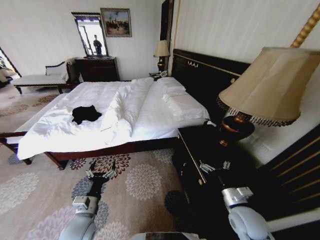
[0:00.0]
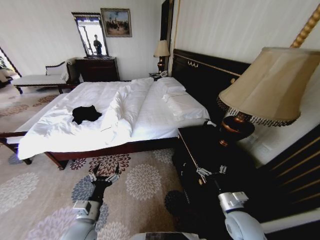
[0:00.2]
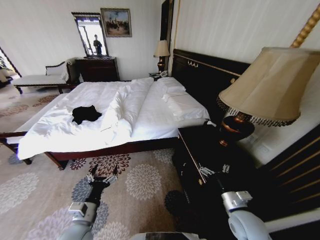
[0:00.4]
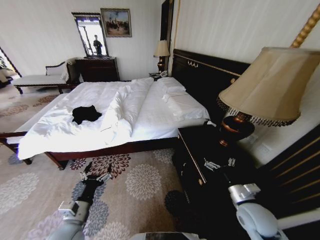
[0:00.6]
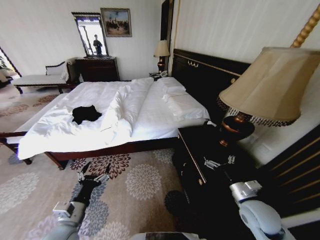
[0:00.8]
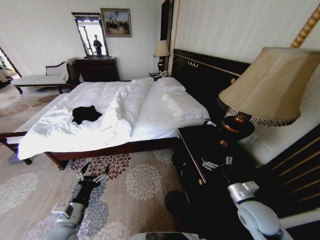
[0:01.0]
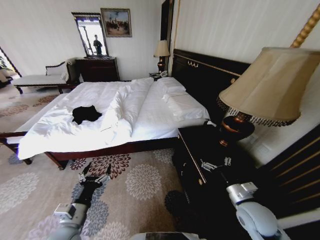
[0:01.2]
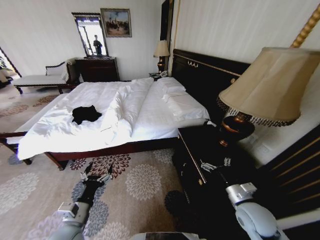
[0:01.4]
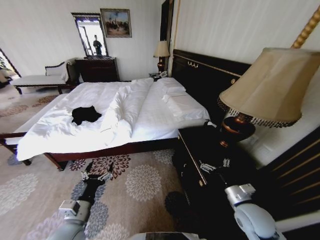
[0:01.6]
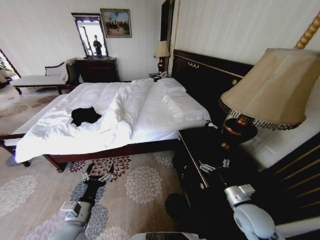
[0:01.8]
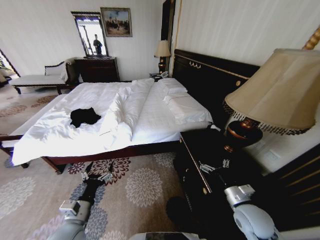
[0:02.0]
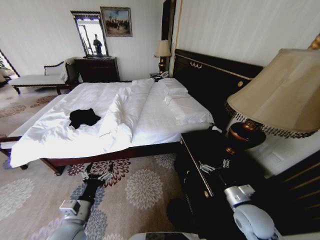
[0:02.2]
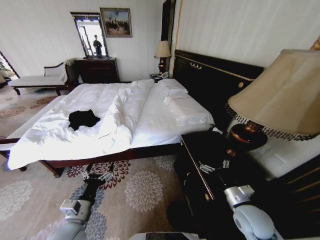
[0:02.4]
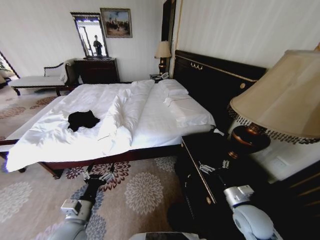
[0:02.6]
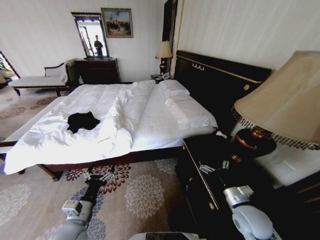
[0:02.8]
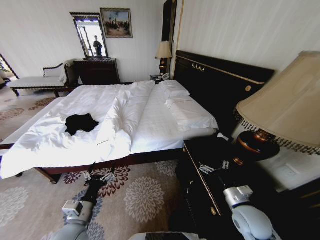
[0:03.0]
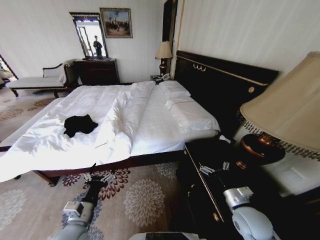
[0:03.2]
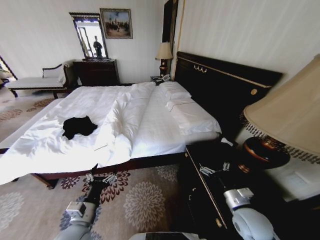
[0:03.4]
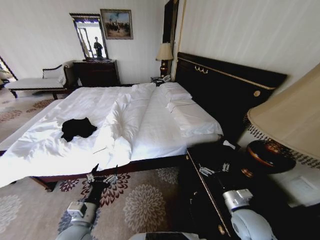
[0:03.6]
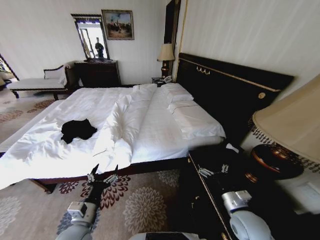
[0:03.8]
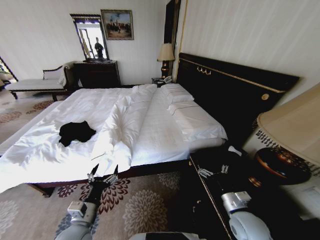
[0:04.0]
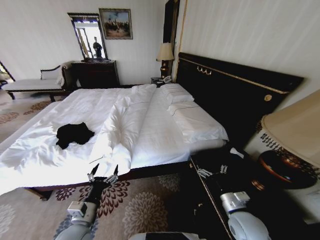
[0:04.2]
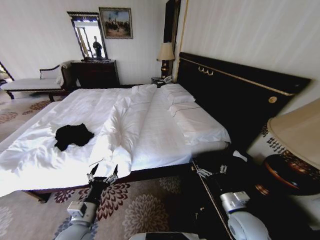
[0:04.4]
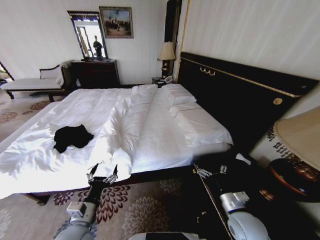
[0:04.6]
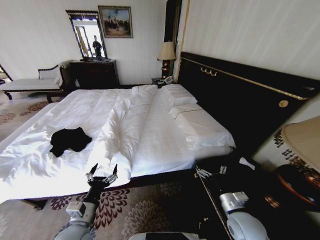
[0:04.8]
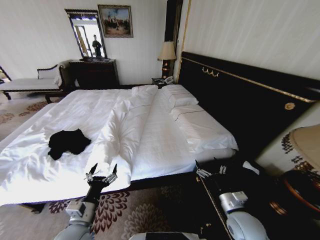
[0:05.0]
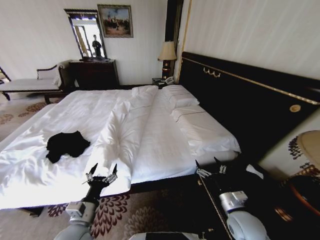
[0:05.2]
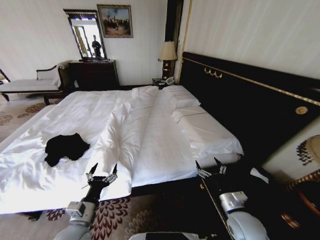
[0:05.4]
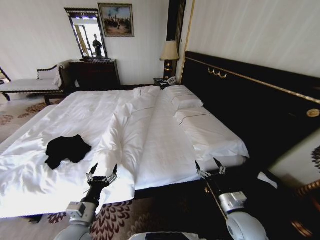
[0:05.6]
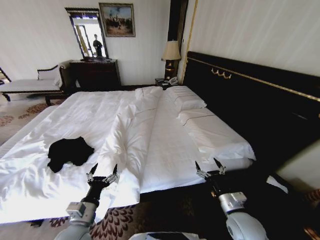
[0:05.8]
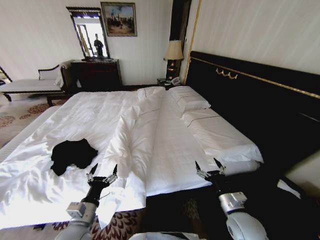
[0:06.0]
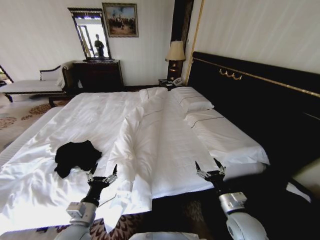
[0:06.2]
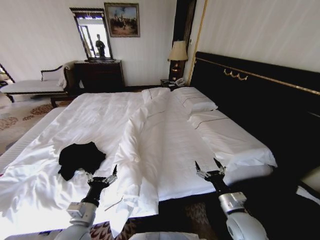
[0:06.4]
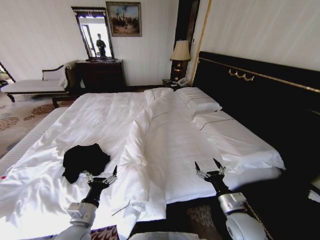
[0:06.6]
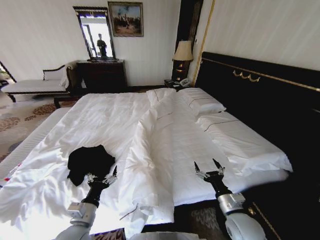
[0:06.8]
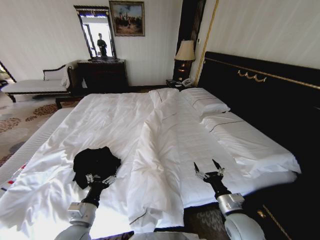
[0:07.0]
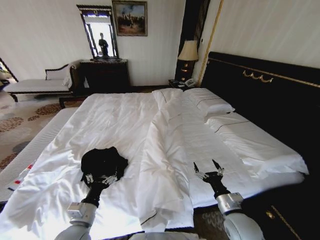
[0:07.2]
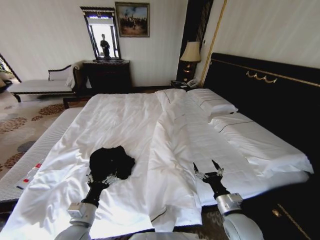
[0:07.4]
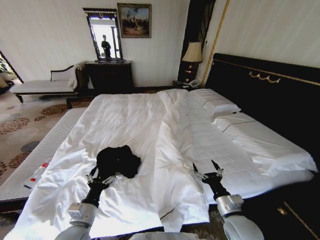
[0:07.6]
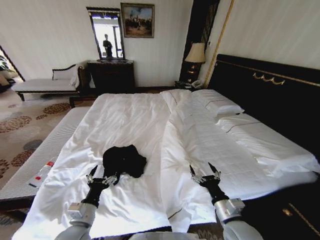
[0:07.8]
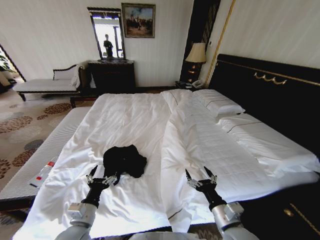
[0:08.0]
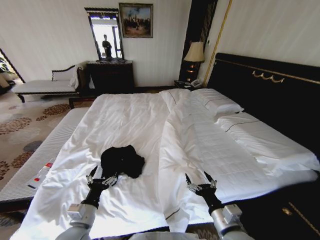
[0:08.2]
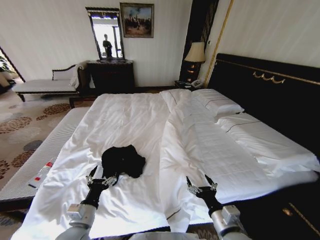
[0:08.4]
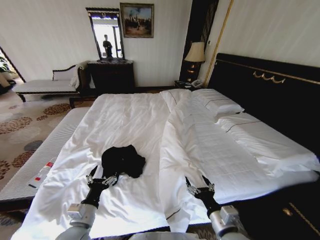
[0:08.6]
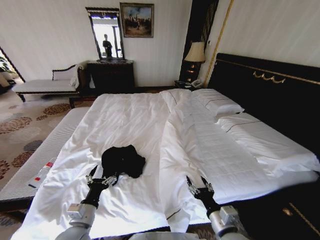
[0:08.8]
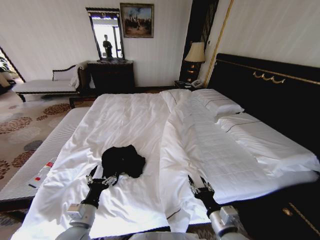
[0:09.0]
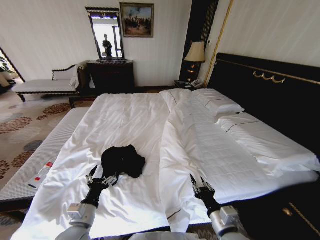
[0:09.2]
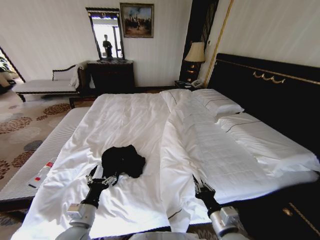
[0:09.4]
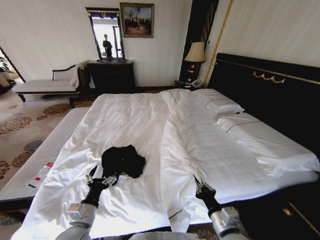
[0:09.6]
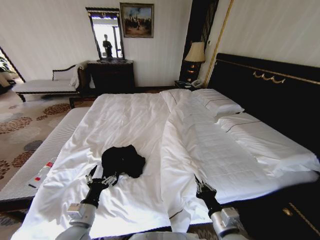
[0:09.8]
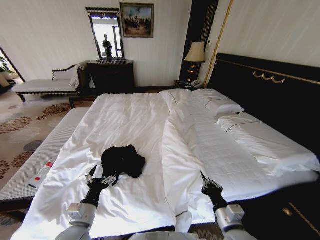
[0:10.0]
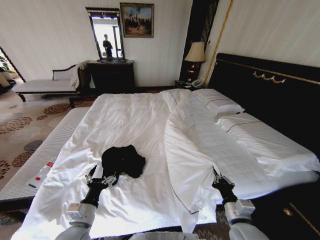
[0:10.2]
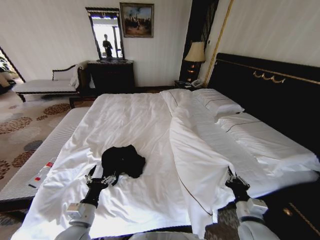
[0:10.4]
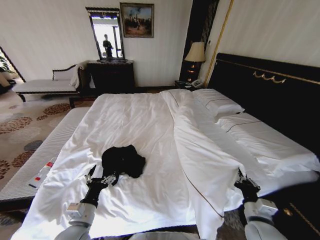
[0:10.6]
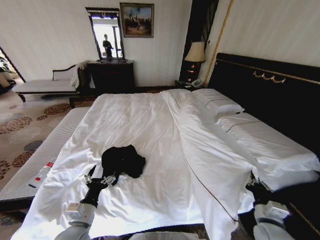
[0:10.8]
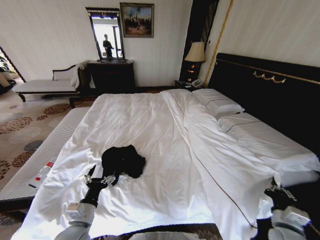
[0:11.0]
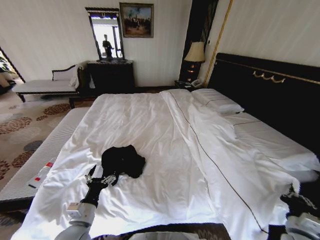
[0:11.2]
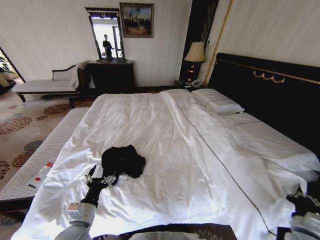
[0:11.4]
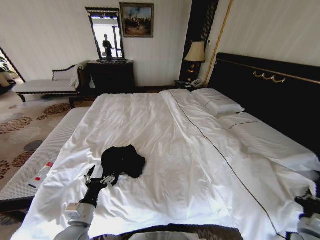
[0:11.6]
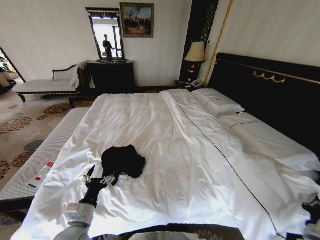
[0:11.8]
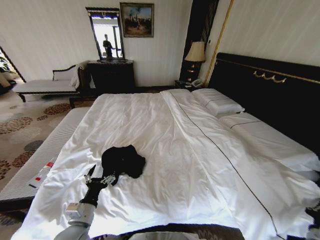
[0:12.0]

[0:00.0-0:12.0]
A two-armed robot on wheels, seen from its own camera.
Task of the whole recording: Fold the clothes on the bed.
0:07.6 to 0:09.0: The right gripper shifts by roughly 5 cm, and closes.
0:09.0 to 0:10.4: The right gripper shifts about 10 cm to the right, and closes up.
0:10.4 to 0:12.0: The right gripper travels to the right by some 25 cm.

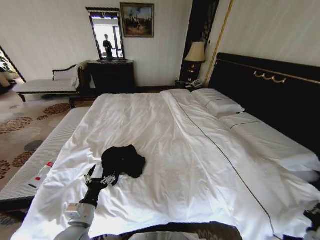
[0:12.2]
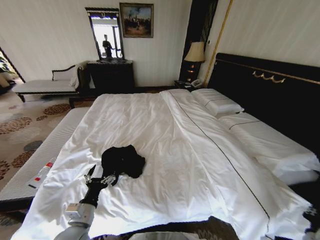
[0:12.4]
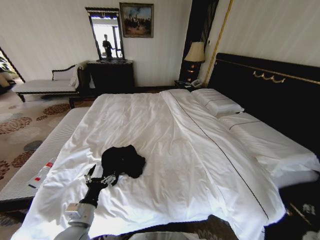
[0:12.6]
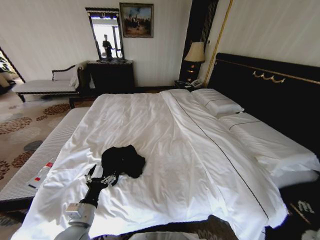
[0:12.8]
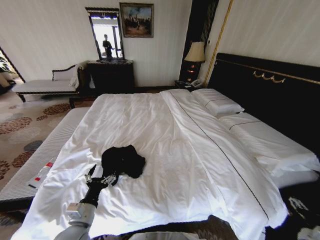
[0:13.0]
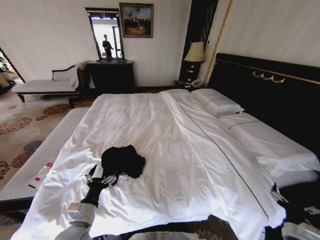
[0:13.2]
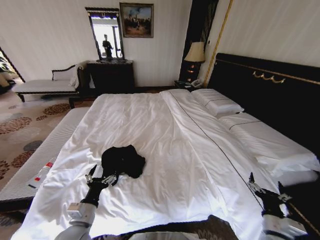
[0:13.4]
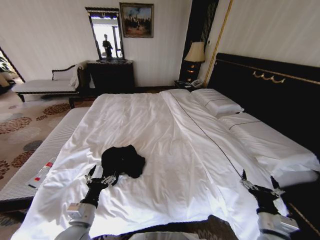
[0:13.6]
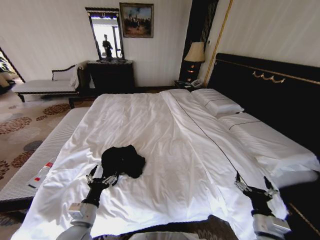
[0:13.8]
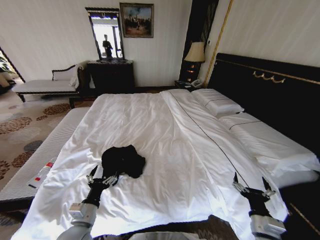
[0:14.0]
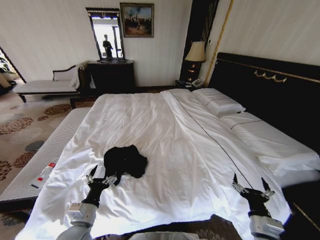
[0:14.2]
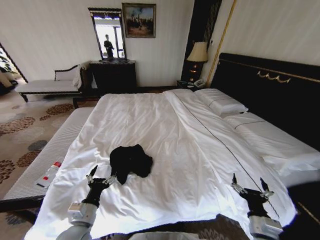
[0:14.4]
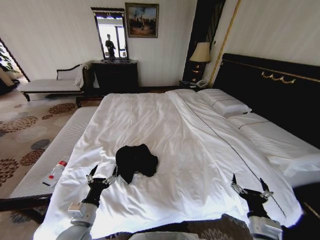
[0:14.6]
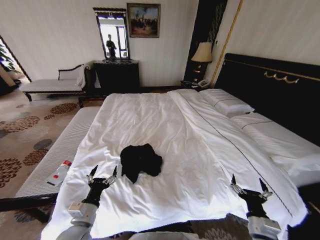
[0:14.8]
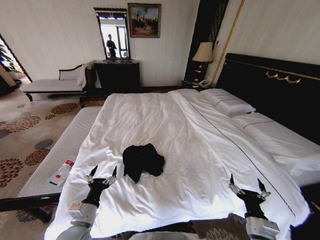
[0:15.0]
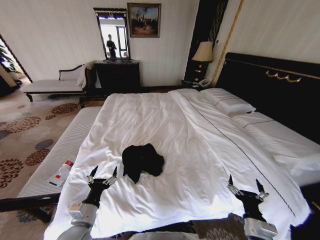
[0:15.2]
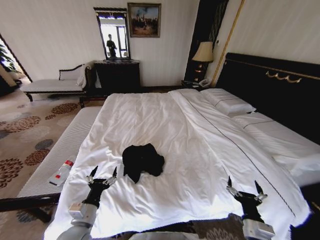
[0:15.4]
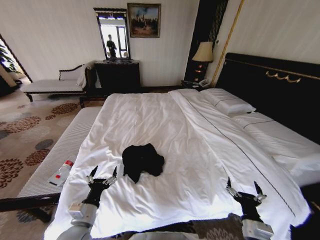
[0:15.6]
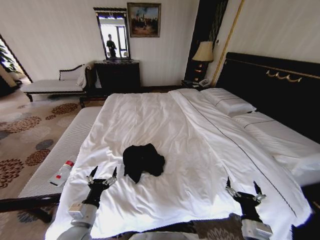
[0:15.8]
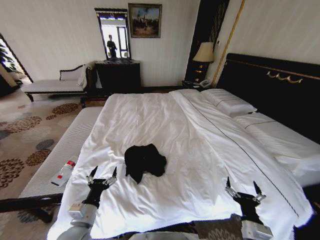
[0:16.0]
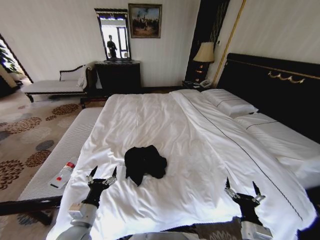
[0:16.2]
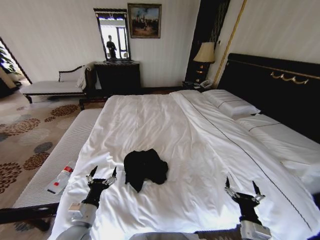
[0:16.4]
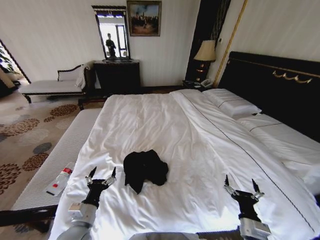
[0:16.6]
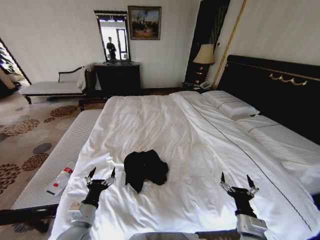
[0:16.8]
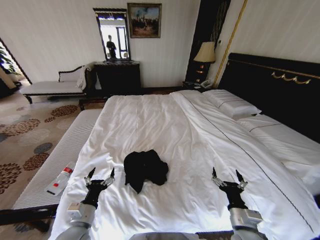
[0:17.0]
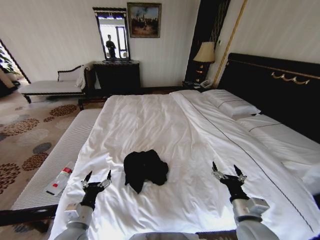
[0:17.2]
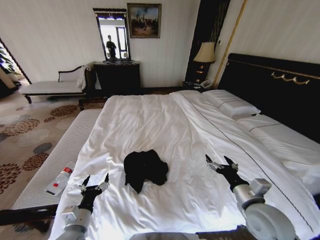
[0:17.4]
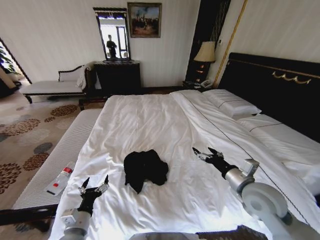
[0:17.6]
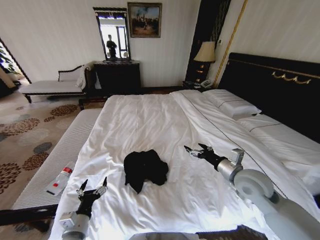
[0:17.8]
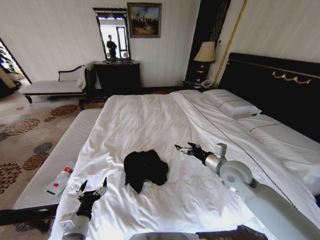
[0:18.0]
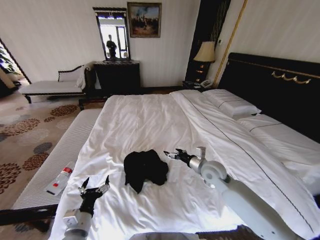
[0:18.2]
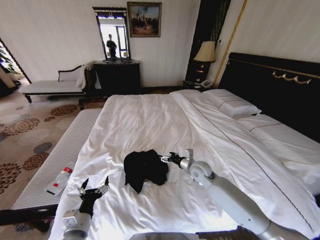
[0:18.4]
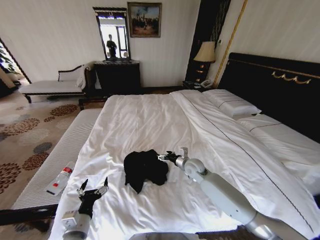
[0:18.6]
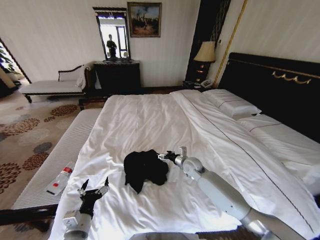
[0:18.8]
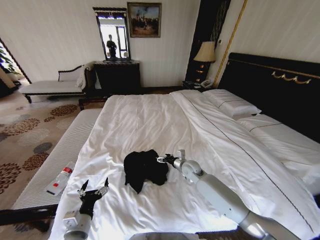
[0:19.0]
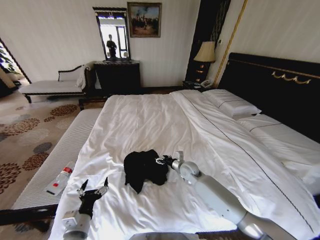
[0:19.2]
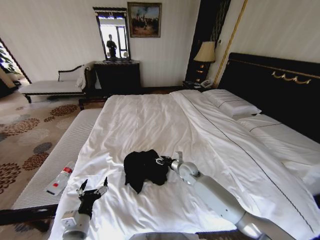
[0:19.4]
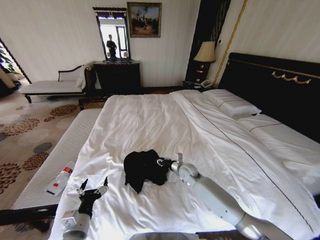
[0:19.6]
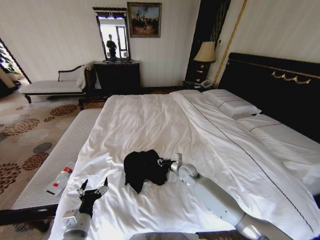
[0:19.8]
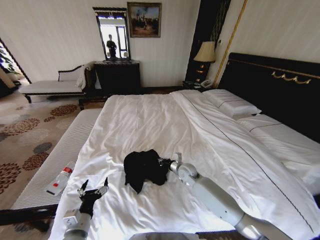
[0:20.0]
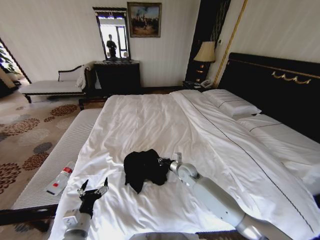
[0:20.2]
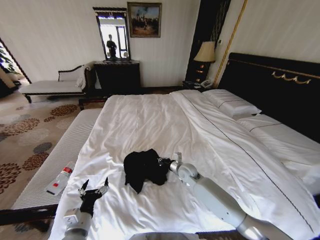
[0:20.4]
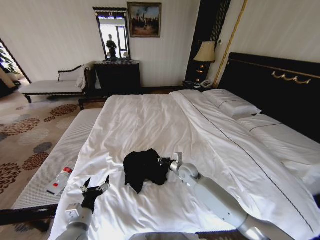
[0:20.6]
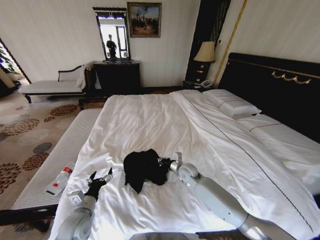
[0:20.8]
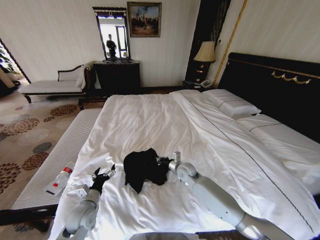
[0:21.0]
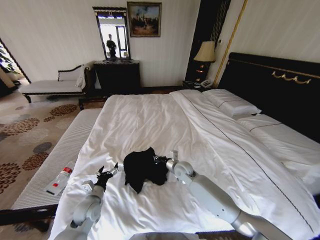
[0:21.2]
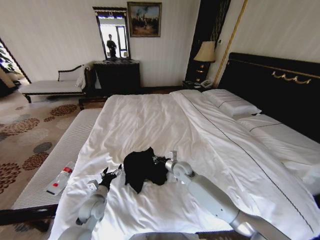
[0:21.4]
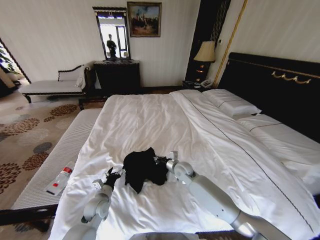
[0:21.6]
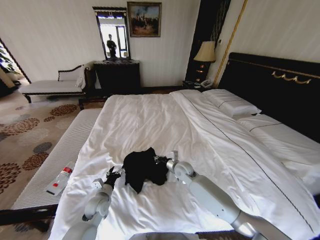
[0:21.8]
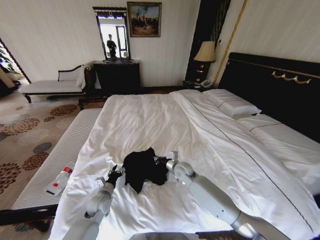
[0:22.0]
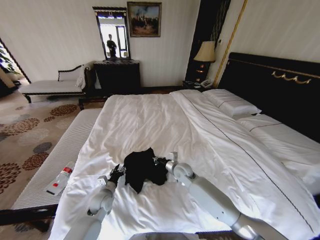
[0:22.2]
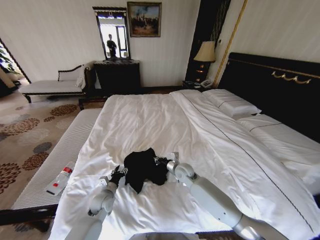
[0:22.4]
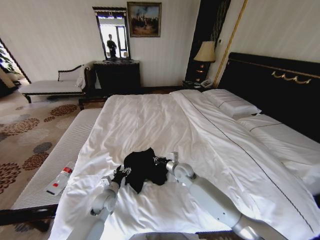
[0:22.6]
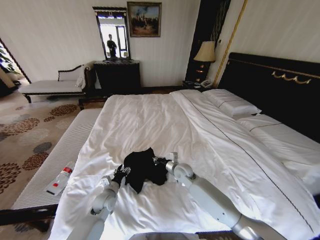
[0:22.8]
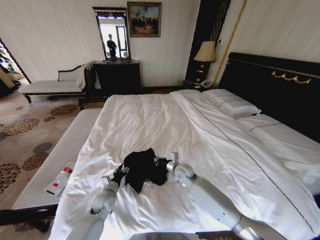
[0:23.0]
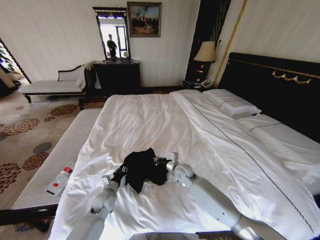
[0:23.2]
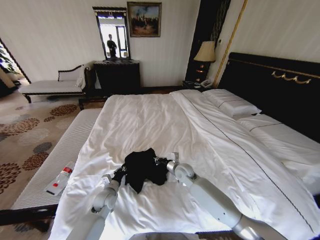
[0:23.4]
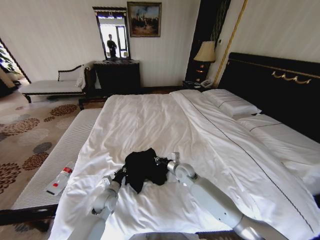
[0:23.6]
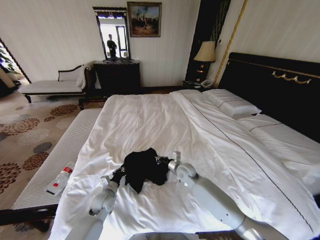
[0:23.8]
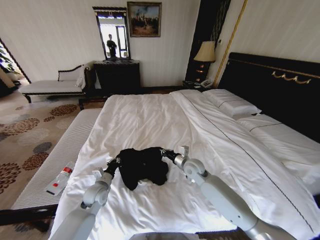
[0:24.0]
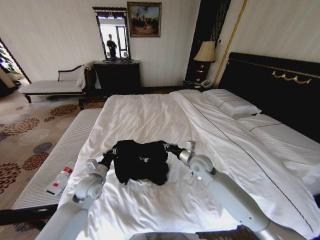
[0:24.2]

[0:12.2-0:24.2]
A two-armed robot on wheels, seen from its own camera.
Task of the whole recording: Fold the clothes on the bed.
0:12.2 to 0:13.8: The right gripper is displaced to the left by about 20 cm, and opens its fingers.
0:16.6 to 0:18.2: The right gripper shifts some 25 cm forward and upward.
0:18.2 to 0:19.8: The right gripper shifts roughly 15 cm downward, to the left and forward, and closes its fingers.
0:19.8 to 0:21.2: The left gripper moves forward and downward, some 15 cm.
0:21.2 to 0:22.6: The left gripper moves approximately 10 cm.
0:22.6 to 0:24.2: The right gripper heads upward and to the right, covering approximately 10 cm, while the left gripper moves upward, roughly 10 cm, and closes up.
